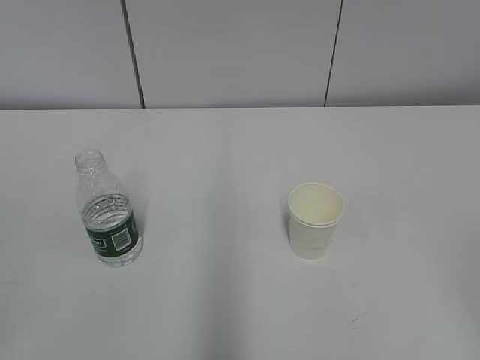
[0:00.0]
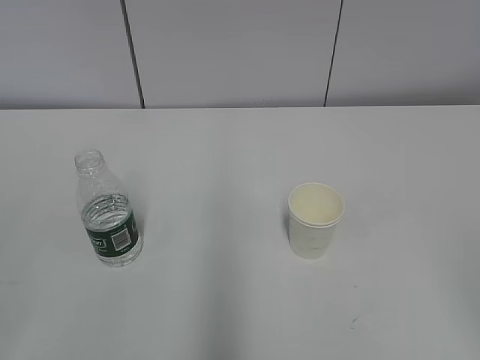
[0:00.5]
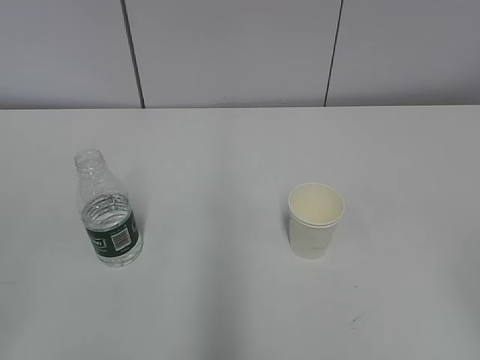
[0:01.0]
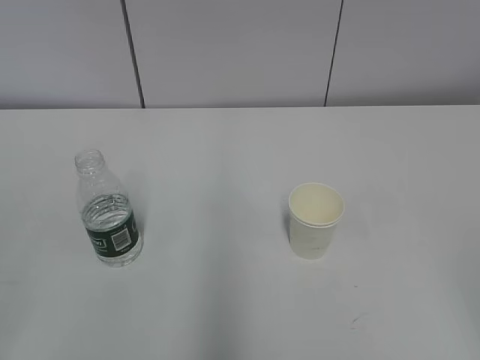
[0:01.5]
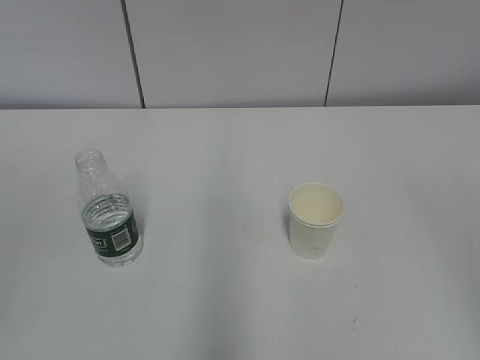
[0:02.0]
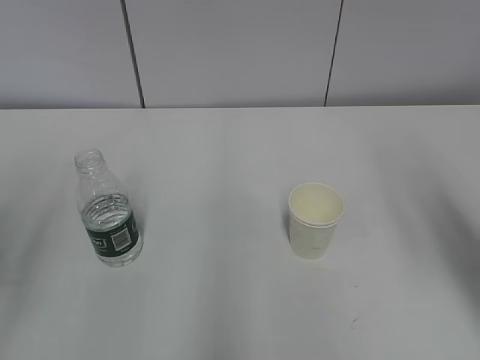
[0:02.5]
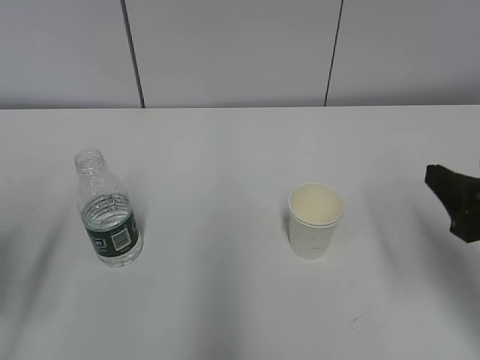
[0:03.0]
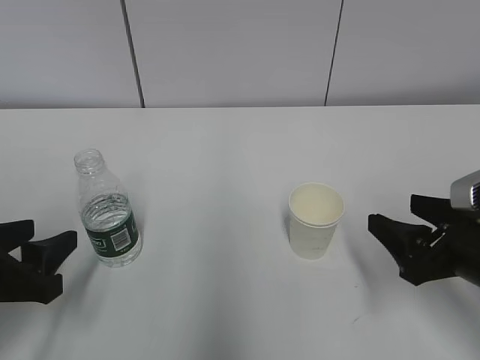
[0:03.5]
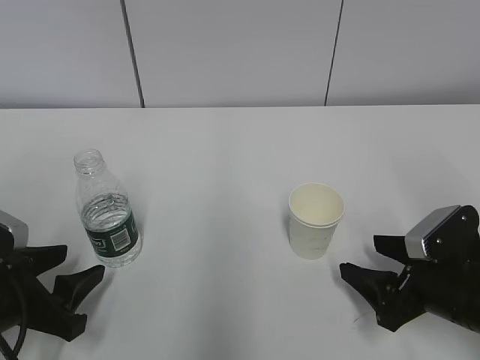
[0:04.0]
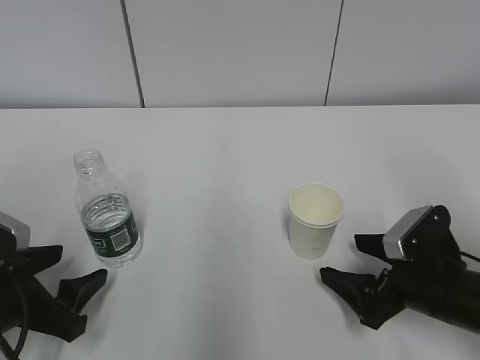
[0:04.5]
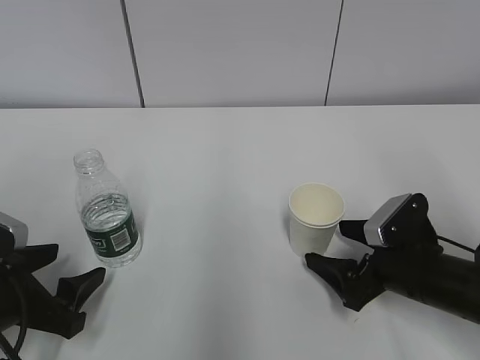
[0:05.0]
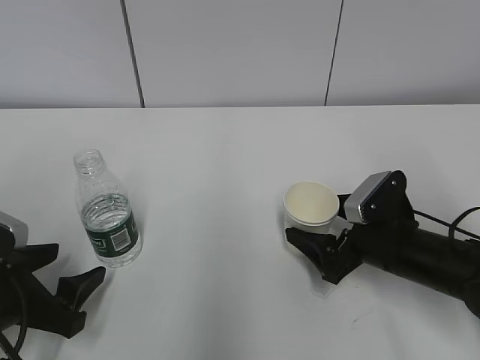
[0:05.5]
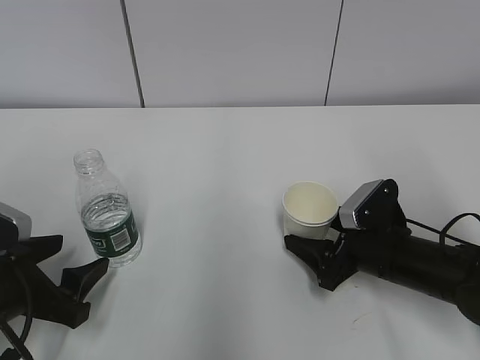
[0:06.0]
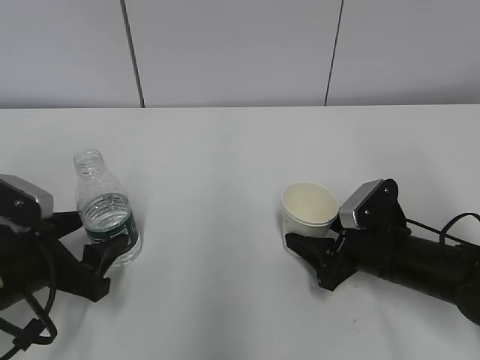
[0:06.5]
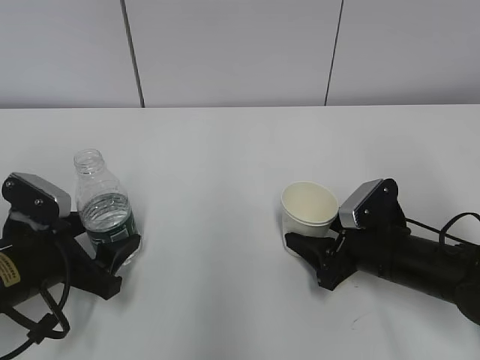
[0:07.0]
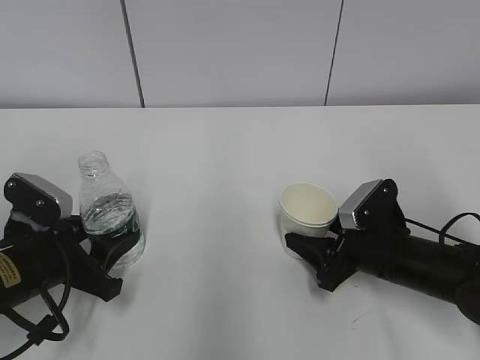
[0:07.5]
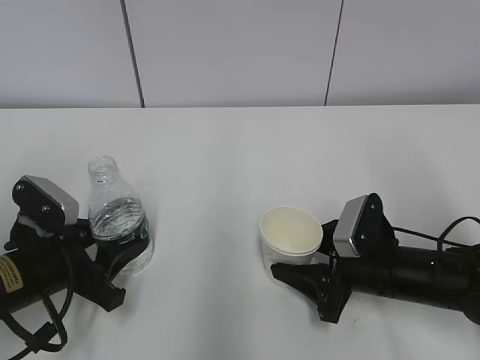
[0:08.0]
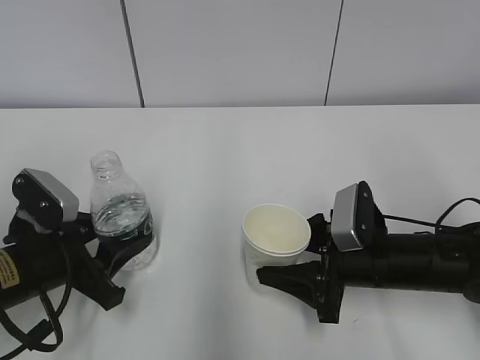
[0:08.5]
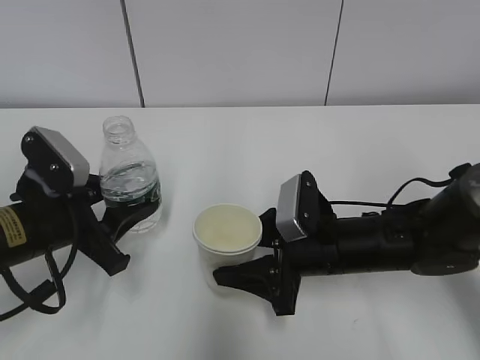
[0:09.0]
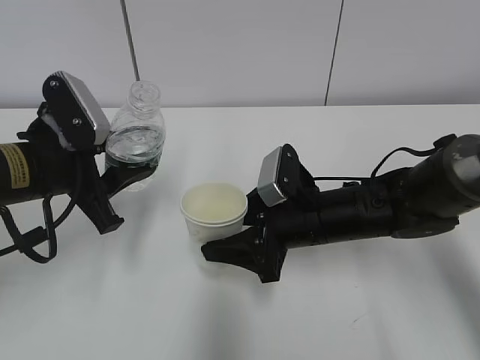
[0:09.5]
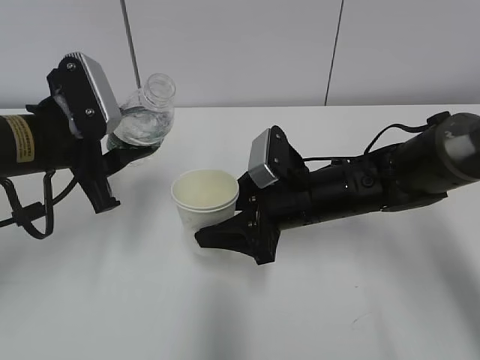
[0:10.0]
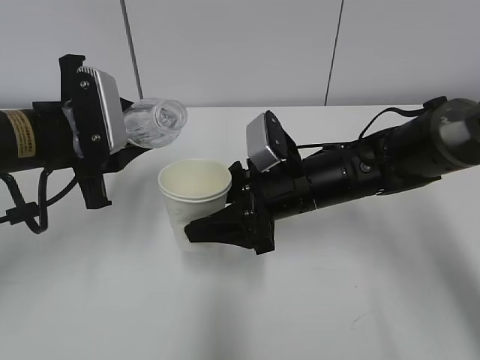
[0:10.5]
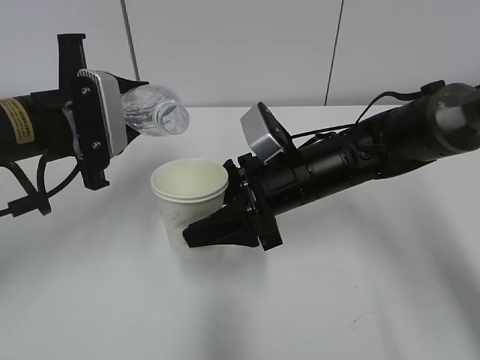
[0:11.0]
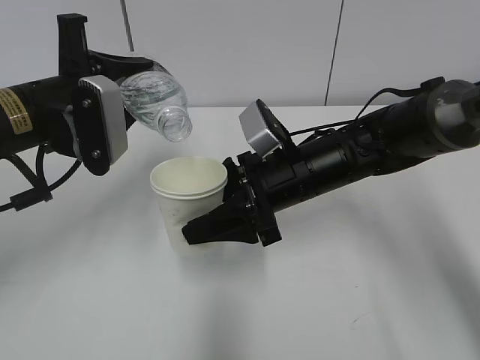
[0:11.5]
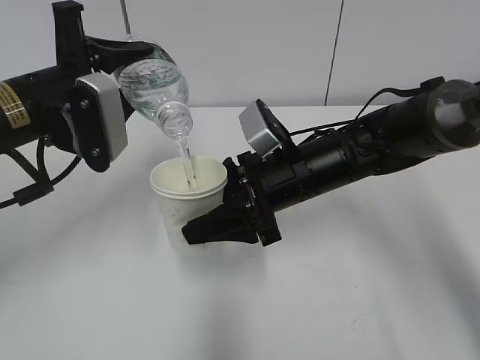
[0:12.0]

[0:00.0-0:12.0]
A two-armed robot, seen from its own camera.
Step, 0:00.0 to 0:05.0: Grab the paper cup with the right hand.
Step, 0:05.5 to 0:06.0: Grab the water bottle with the left hand.
Step, 0:06.5 to 0:09.5: Lift the paper cup with the right hand.
0:02.0 to 0:04.0: Both grippers travel together downward and forward, roughly 35 cm.
0:04.0 to 0:06.0: The left gripper opens its fingers; the right gripper is displaced forward by about 5 cm, and opens, then closes again.
0:06.0 to 0:08.0: The right gripper closes its fingers. The left gripper closes up.
0:08.0 to 0:10.0: The right gripper travels to the left, upward and forward by some 10 cm; the left gripper is displaced upward and forward by about 15 cm.

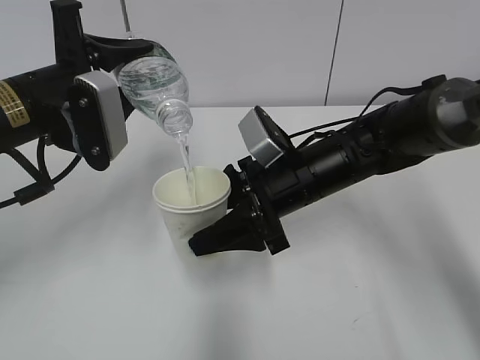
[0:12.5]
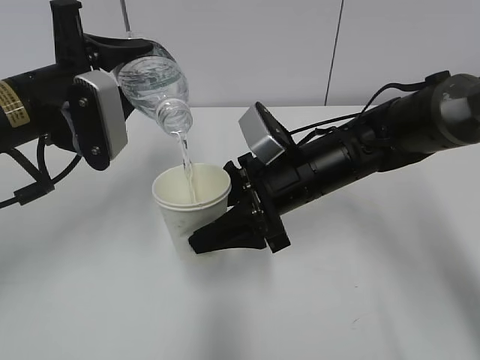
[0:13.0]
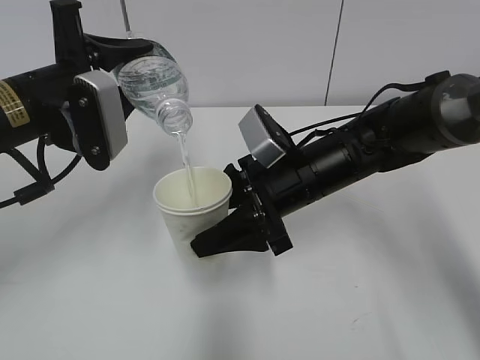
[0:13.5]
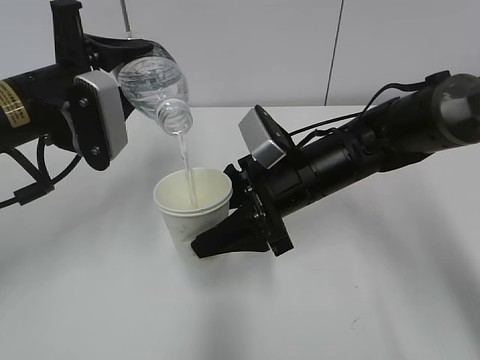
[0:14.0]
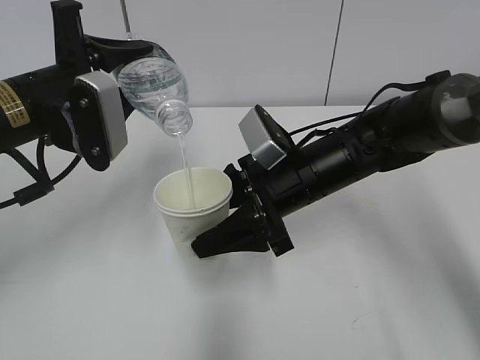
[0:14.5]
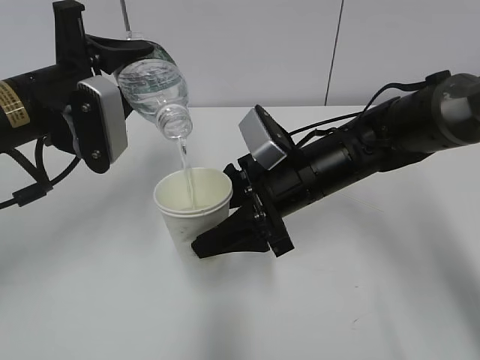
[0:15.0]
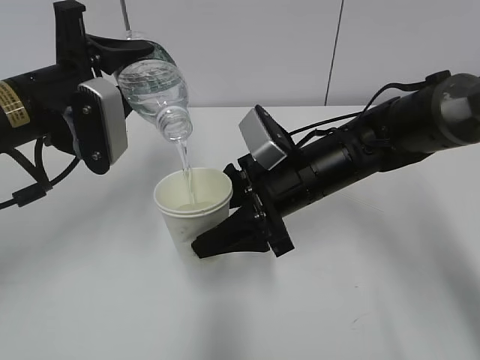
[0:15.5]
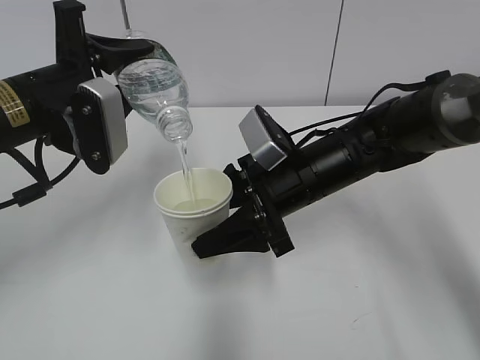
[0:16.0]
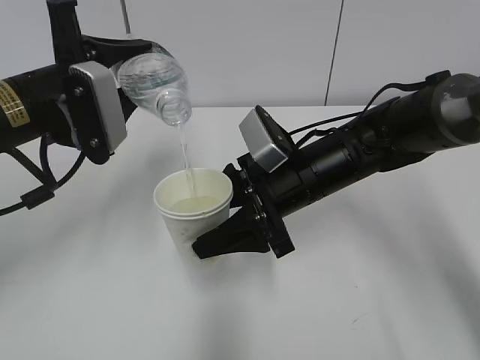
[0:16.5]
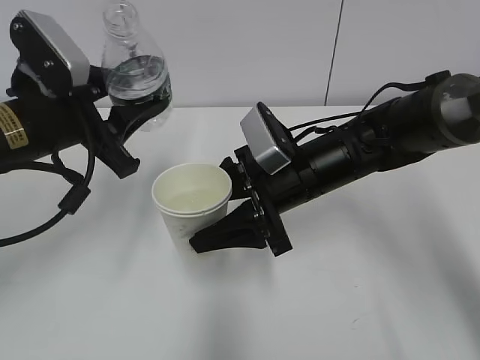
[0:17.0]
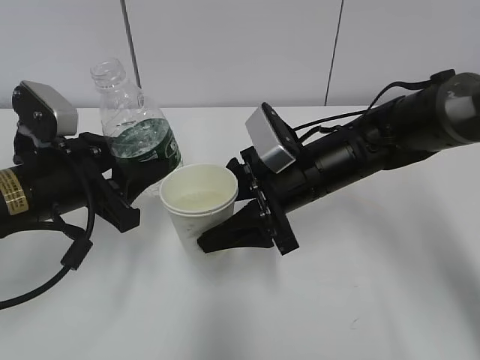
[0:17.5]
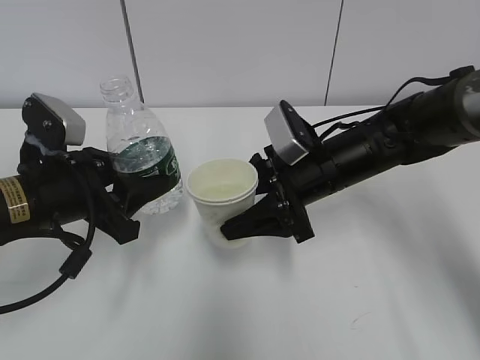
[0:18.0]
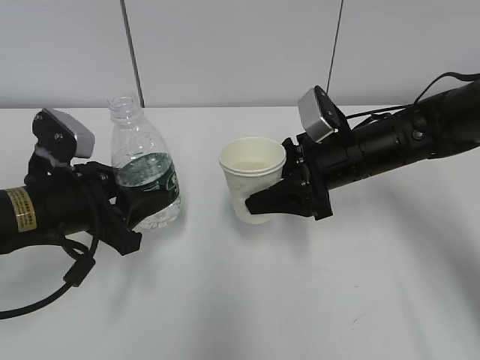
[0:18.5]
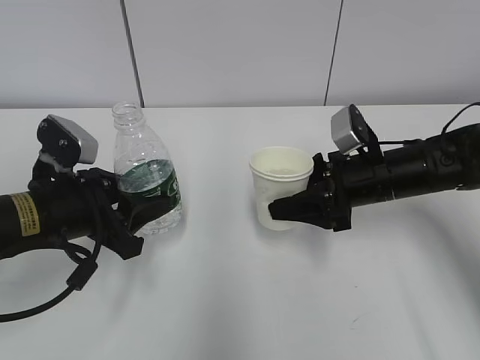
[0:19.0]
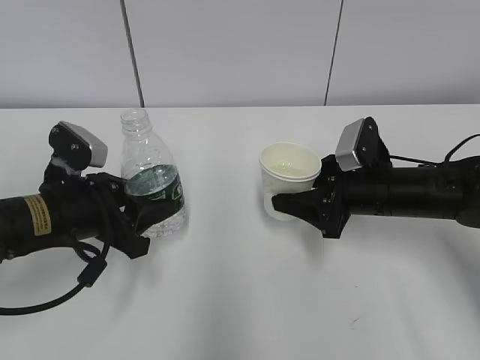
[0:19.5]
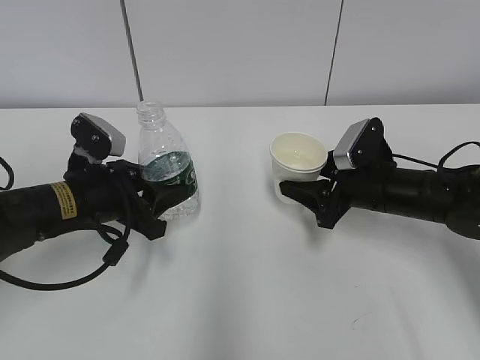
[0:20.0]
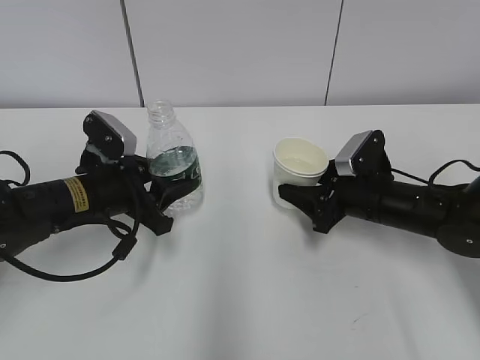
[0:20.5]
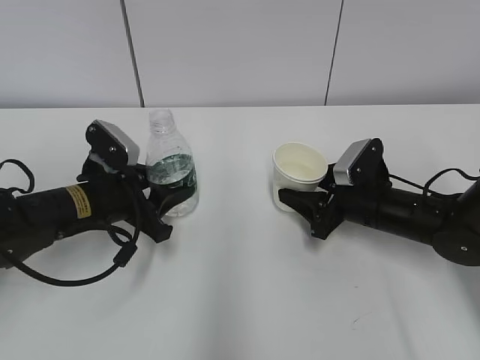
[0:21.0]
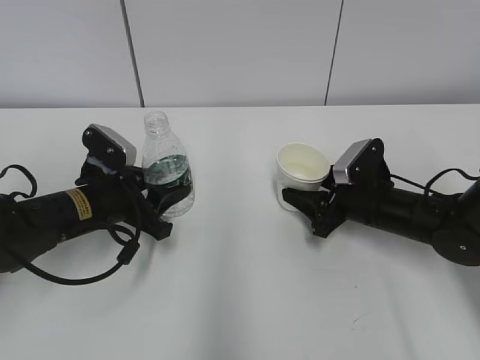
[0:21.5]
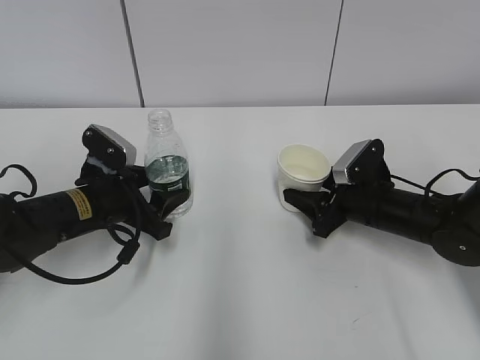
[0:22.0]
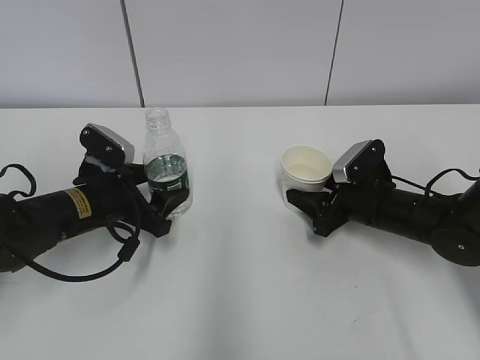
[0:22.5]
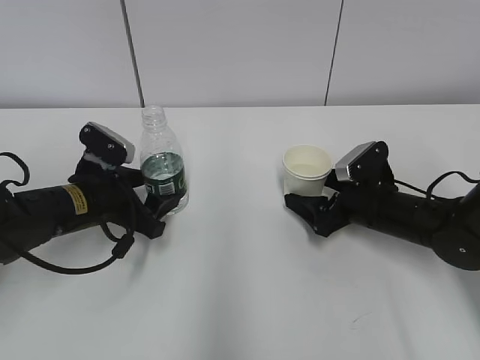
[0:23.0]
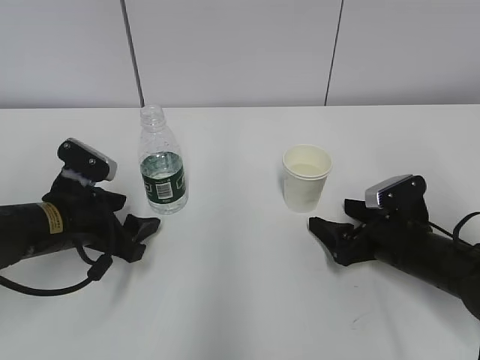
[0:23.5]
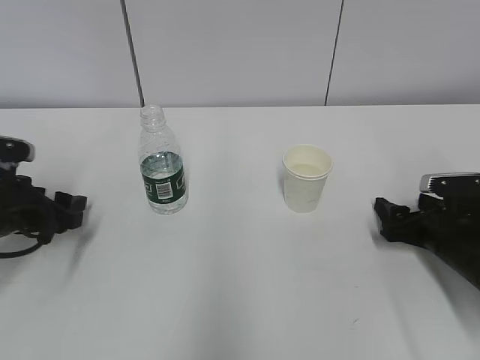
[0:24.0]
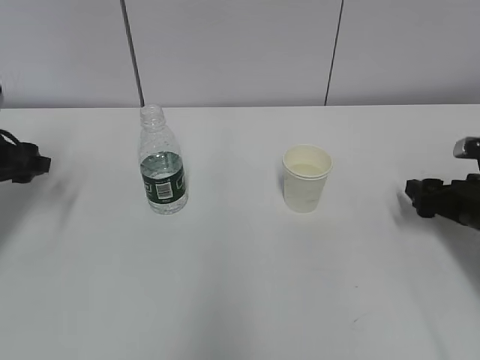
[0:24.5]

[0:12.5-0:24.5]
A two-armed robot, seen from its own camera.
Step, 0:14.5 to 0:19.0: Place the paper cup with the right hand.
Step, 0:14.5 to 0:19.0: Place the water bottle with the left hand.
0:12.5 to 0:14.5: Neither gripper changes place.
0:14.5 to 0:16.5: The grippers move only a little.
0:16.5 to 0:18.5: The left gripper moves downward, roughly 10 cm; the right gripper goes approximately 5 cm to the right.
0:18.5 to 0:20.5: The right gripper travels downward by approximately 10 cm. The left gripper heads forward, covering about 5 cm.
0:20.5 to 0:22.5: The left gripper opens.
0:22.5 to 0:24.5: The left gripper is displaced to the left and upward by about 15 cm. Meanwhile the right gripper shifts about 15 cm to the right and backward, and opens up.

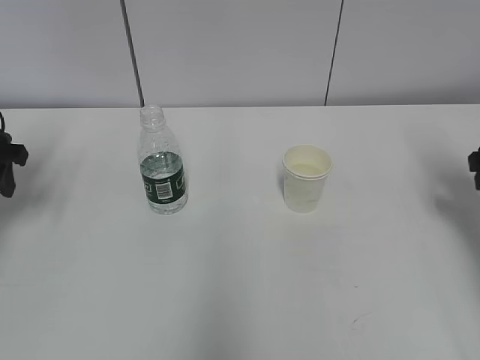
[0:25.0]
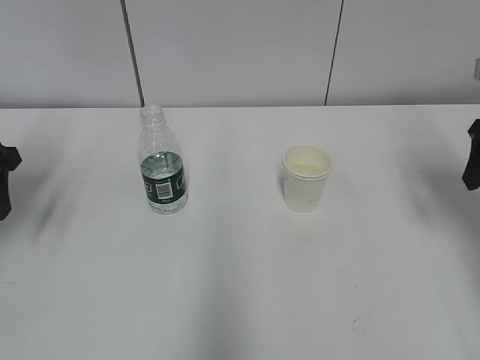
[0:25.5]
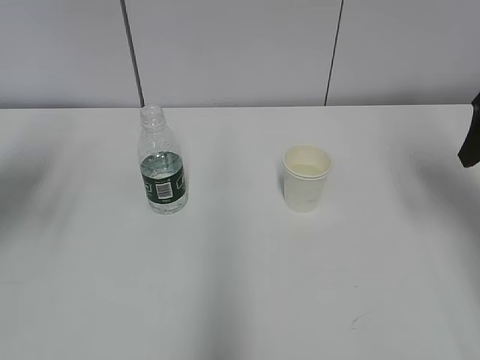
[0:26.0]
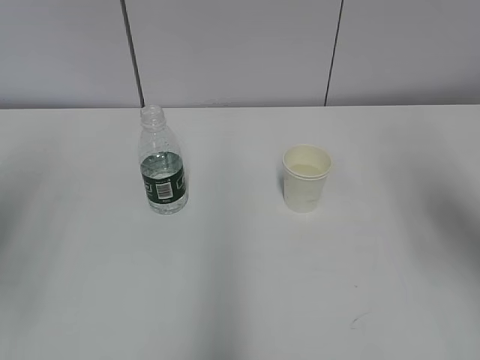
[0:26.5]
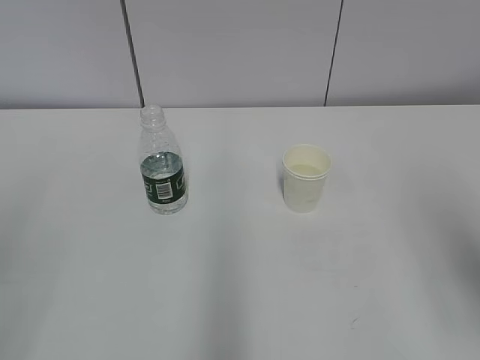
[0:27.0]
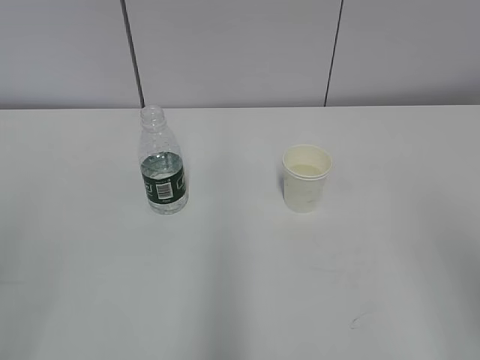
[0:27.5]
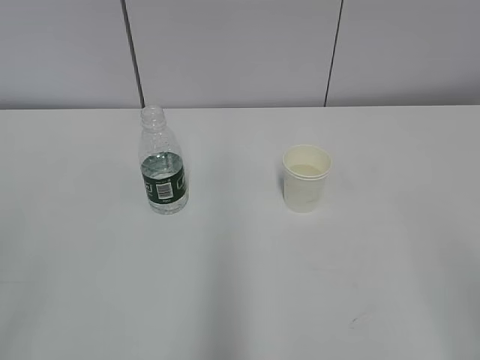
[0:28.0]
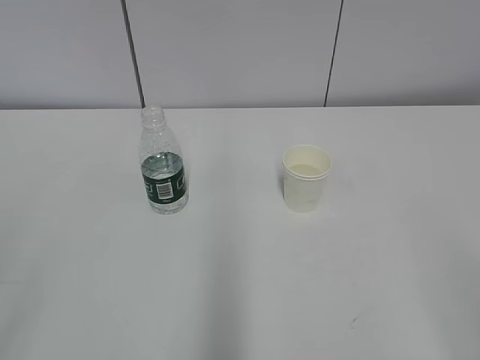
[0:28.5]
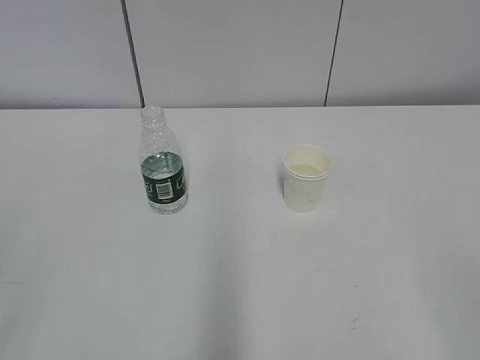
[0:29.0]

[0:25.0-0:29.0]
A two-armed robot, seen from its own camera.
0:25.0 to 0:27.0: The right gripper shifts some 20 cm backward and upward. Meanwhile the left gripper shifts some 30 cm backward.
0:27.0 to 0:29.0: The right gripper travels backward by about 15 cm.
